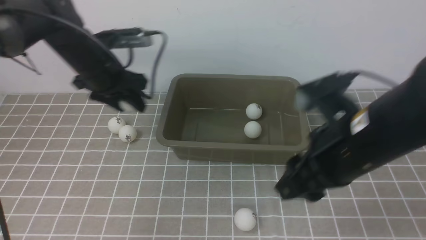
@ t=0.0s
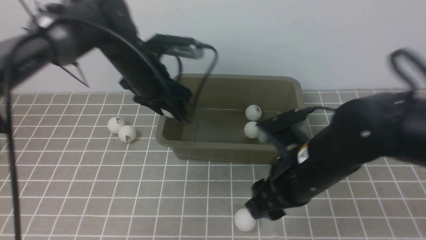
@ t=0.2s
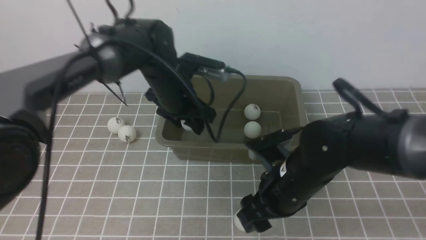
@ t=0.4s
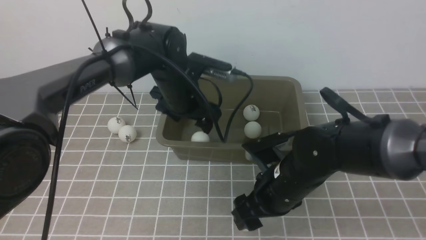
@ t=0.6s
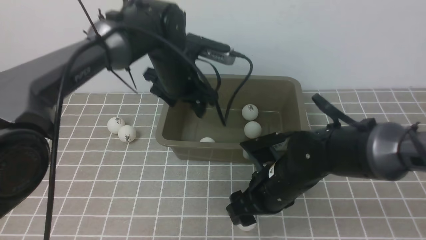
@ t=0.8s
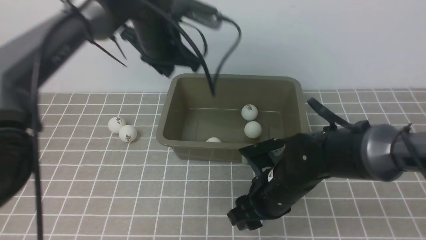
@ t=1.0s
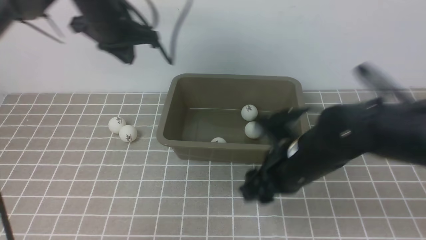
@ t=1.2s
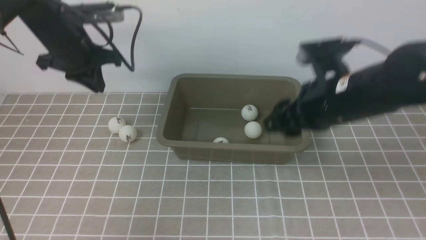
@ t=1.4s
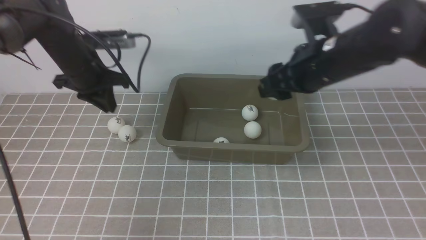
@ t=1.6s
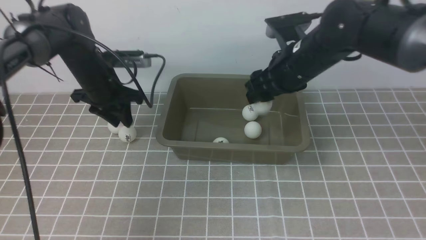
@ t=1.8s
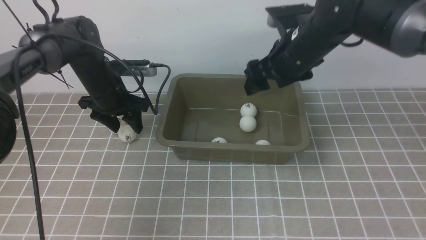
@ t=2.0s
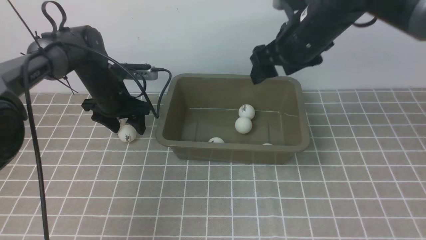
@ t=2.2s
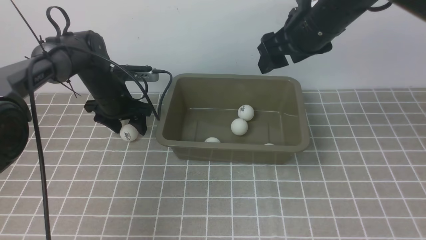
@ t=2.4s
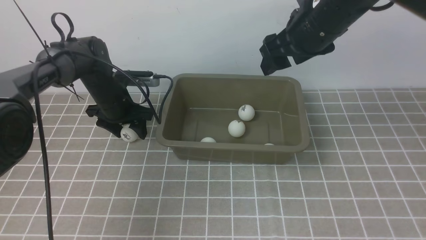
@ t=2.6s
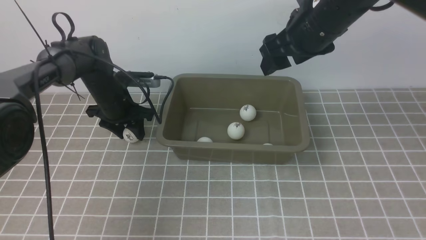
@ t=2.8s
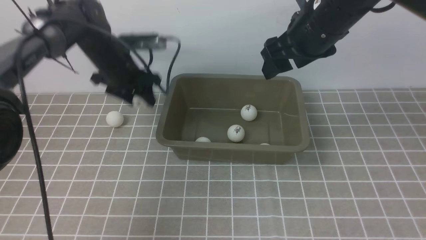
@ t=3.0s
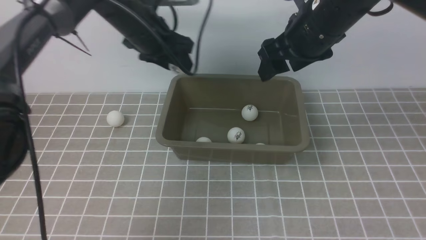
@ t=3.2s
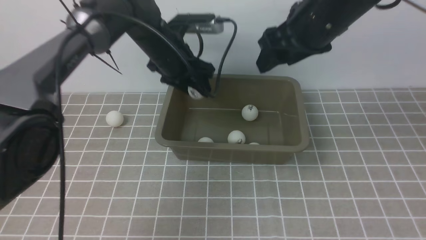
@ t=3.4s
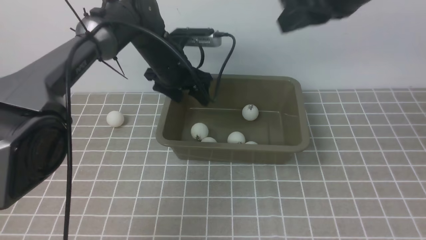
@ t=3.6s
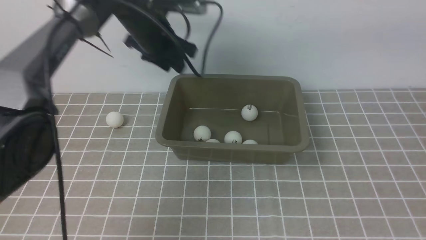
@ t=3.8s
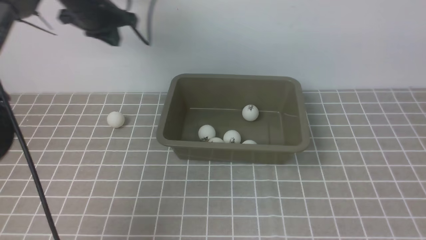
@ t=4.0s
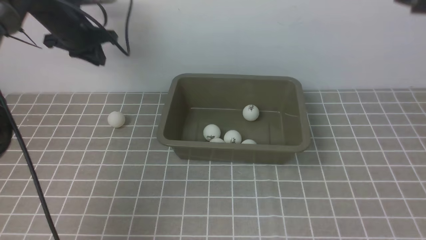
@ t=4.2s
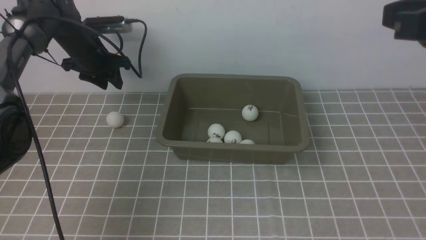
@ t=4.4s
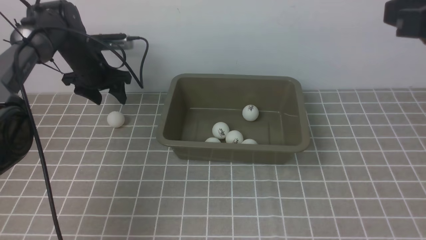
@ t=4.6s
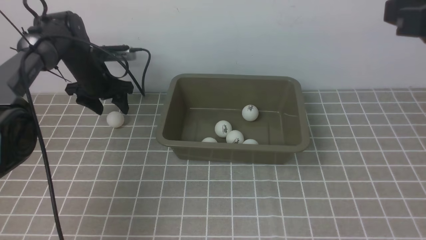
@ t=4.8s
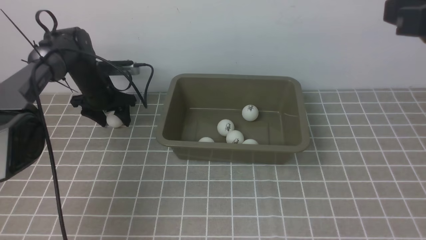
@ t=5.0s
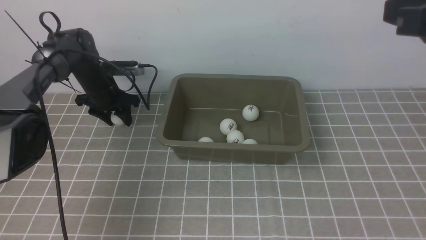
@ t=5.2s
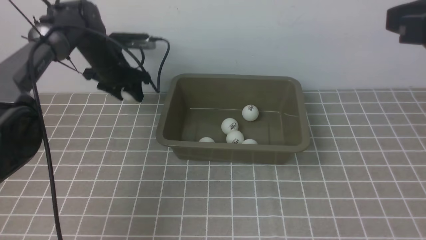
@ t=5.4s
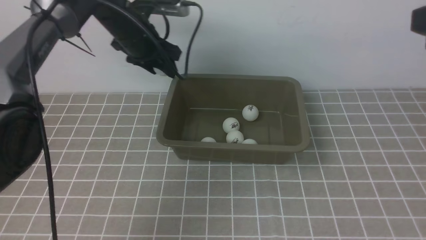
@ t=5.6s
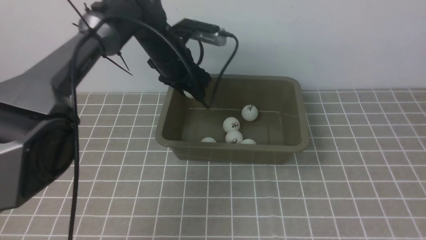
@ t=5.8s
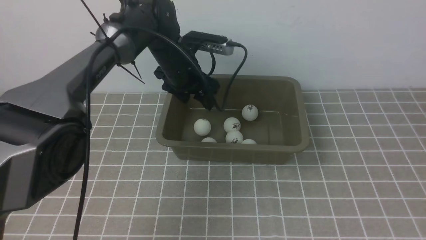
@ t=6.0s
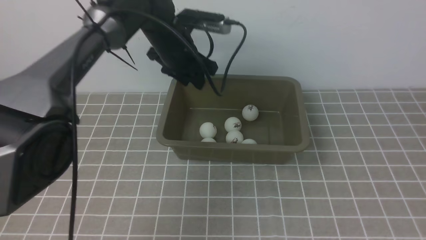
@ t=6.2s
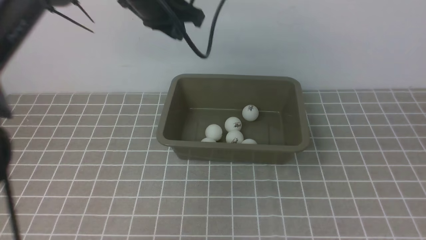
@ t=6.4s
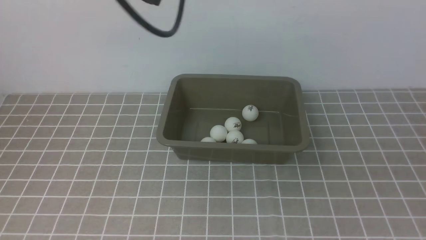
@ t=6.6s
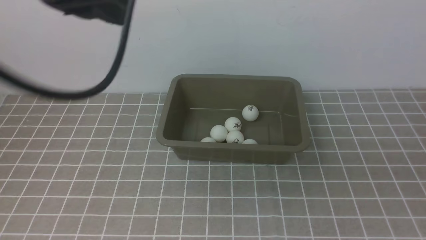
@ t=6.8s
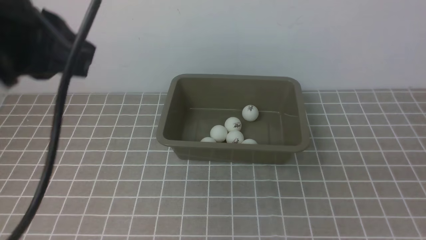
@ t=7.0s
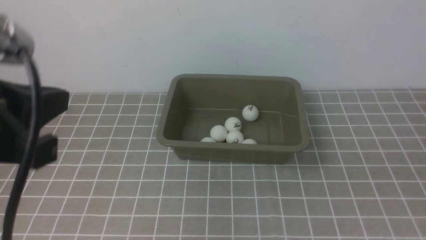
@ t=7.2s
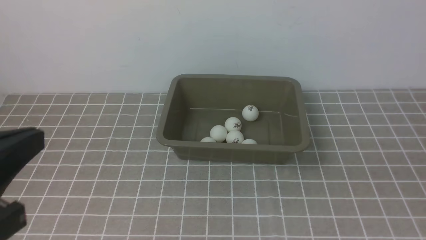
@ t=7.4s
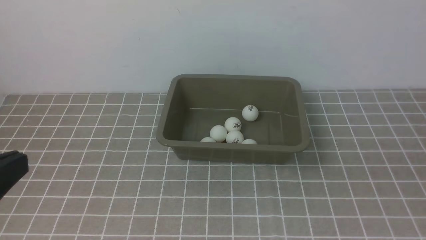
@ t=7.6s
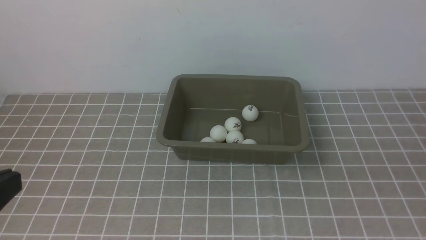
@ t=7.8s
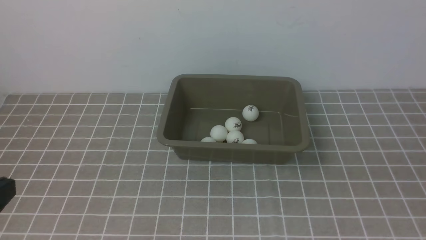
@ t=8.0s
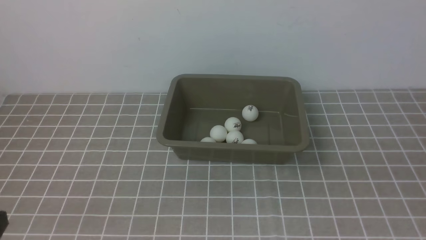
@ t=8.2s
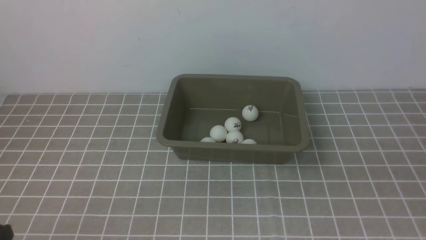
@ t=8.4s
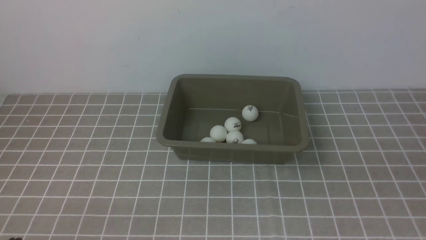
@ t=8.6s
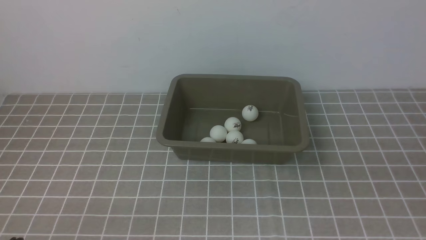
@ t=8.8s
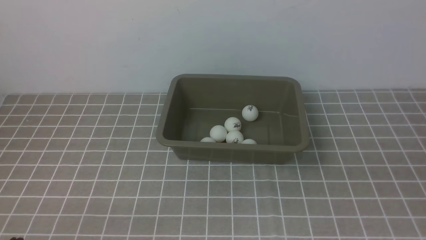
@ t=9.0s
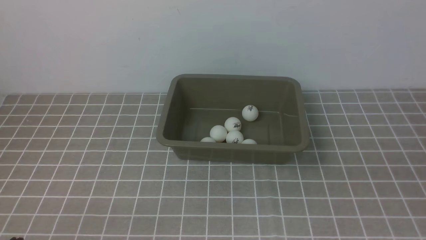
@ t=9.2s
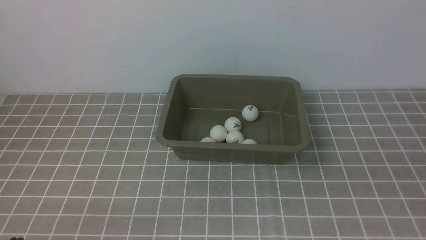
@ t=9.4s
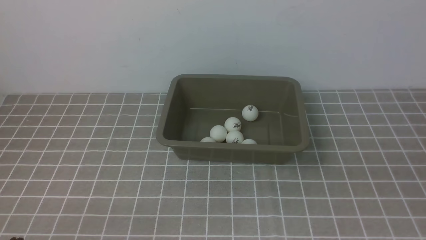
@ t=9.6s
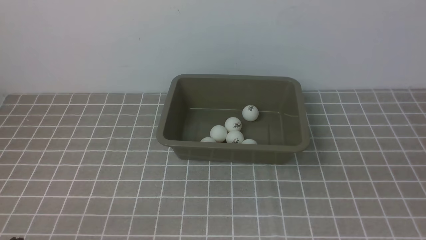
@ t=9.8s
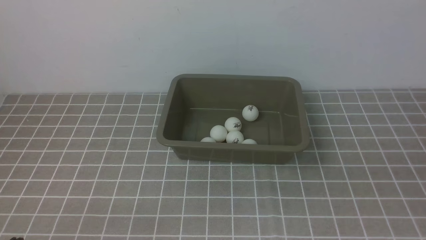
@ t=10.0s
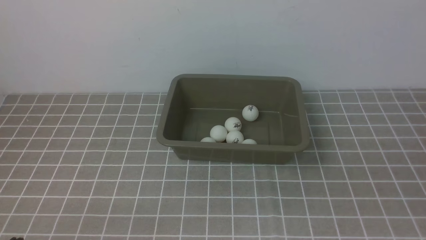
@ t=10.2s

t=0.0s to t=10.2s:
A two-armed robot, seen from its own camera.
Step, t=0.0s to t=0.6s: use the left arm to put the table tennis ball into the box.
Step, t=0.8s to t=1.2s: use the right arm to clamp the table tennis ball closest to it.
Step, t=1.4s to t=1.8s: use the right arm to put the table tennis ball into the box.
Step, t=2.0s to t=2.8s: use the left arm to clamp the table tennis ball closest to it.
Step, t=3.0s to t=3.6s: use the left arm to put the table tennis ball into the box.
Step, t=3.8s to t=5.4s: use the left arm to clamp the table tennis ball closest to it.
Step, t=5.6s to t=6.2s: use the left arm to put the table tennis ball into the box.
t=0.0s to t=1.4s: The left gripper goes to the right and returns, some 10 cm each way, and closes its fingers; the right gripper goes some 5 cm forward, and moves roughly 15 cm downward and comes back.
t=1.4s to t=3.0s: The right gripper heads forward and upward, covering roughly 10 cm, while the left gripper goes roughly 5 cm to the right, and opens.
t=3.0s to t=4.4s: The left gripper goes roughly 10 cm to the left, and closes and opens again; the right gripper shifts about 20 cm backward, upward and to the right, and closes.
t=4.4s to t=5.8s: The left gripper shifts roughly 15 cm to the right. Meanwhile the right gripper is displaced backward by approximately 5 cm.
t=5.8s to t=7.2s: The right gripper goes roughly 20 cm backward, downward and to the right; the left gripper is displaced backward by roughly 35 cm, and closes.
t=7.2s to t=8.8s: The left gripper goes approximately 20 cm downward.

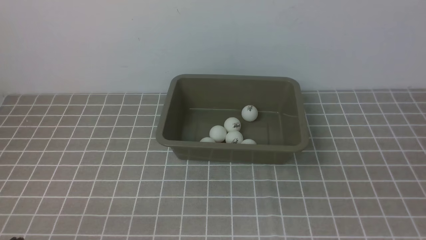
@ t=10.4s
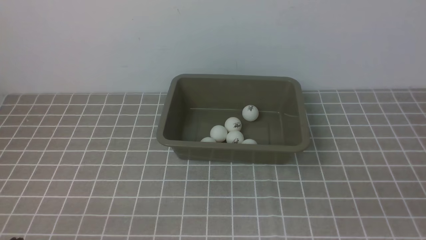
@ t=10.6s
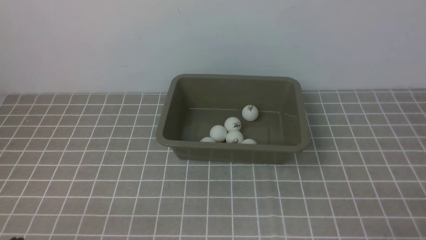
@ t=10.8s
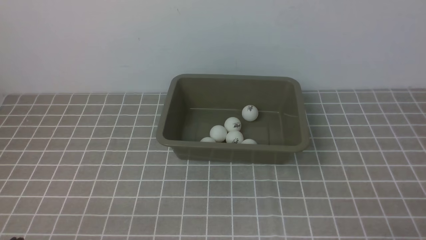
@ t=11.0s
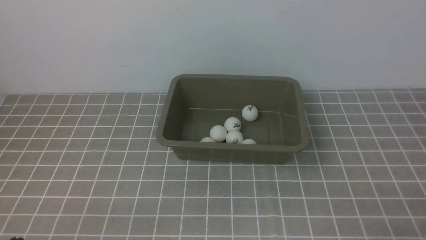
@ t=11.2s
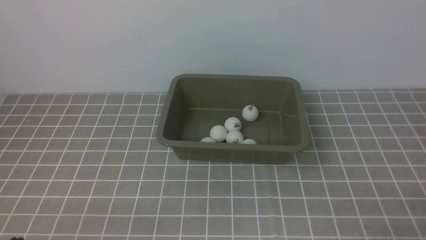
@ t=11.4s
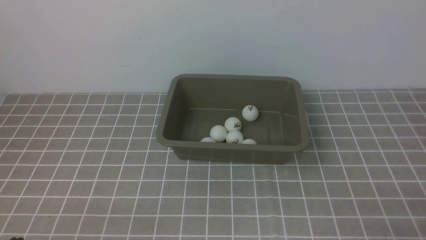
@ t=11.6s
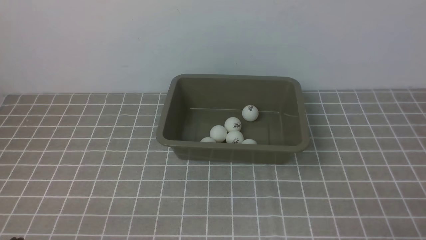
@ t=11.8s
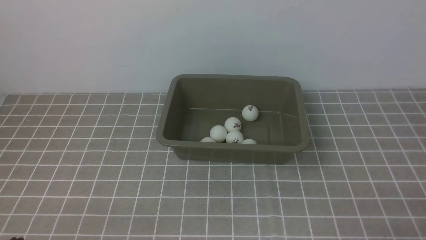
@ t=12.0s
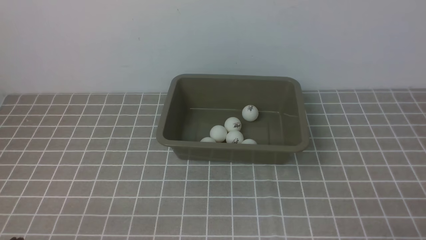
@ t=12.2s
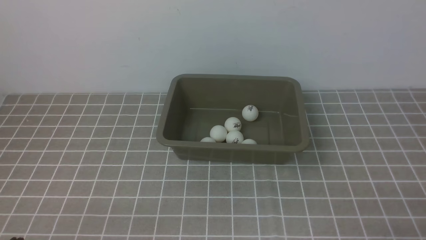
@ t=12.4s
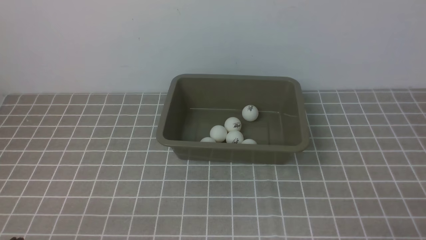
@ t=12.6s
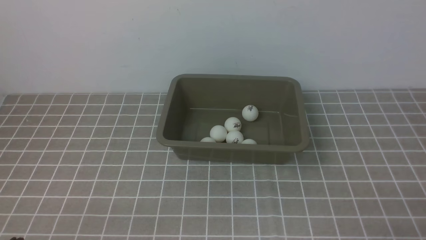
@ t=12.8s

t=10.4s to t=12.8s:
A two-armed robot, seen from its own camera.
t=11.6s to t=12.8s: Both grippers stay put.

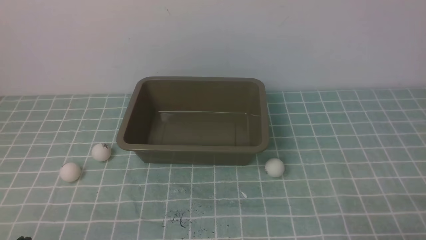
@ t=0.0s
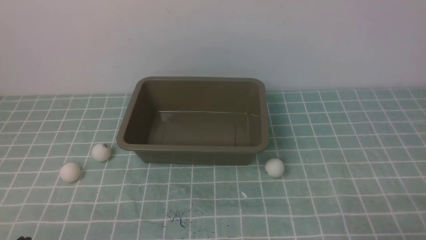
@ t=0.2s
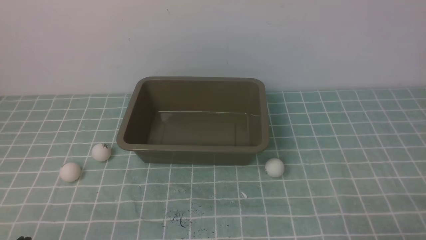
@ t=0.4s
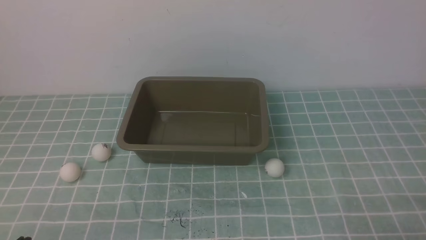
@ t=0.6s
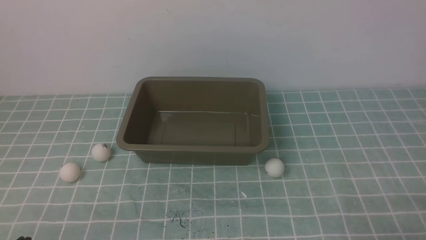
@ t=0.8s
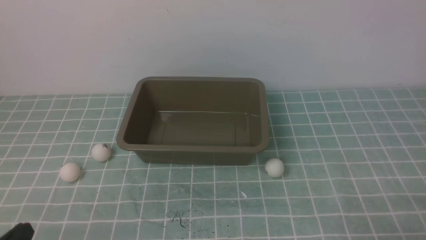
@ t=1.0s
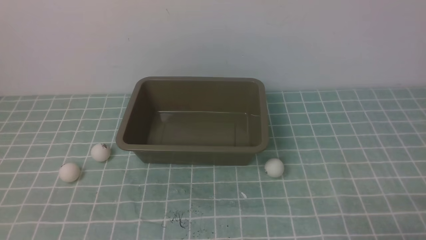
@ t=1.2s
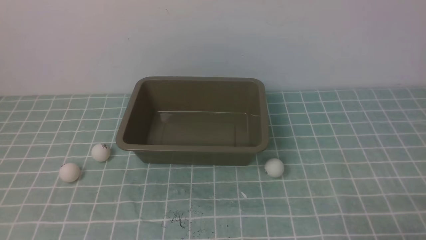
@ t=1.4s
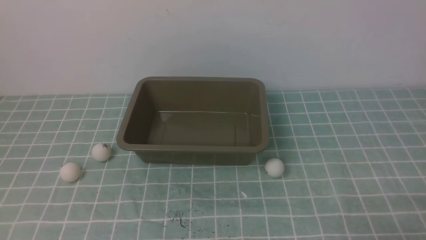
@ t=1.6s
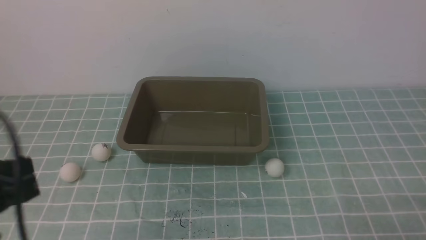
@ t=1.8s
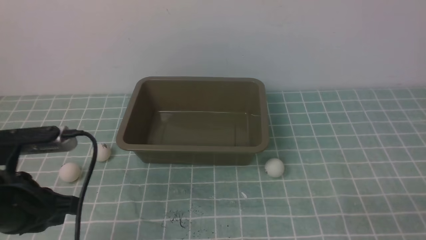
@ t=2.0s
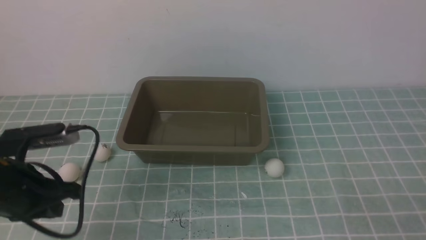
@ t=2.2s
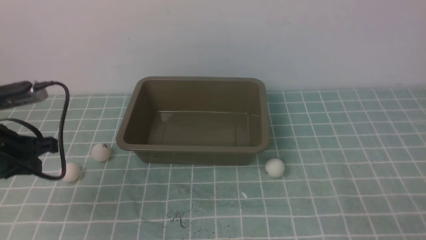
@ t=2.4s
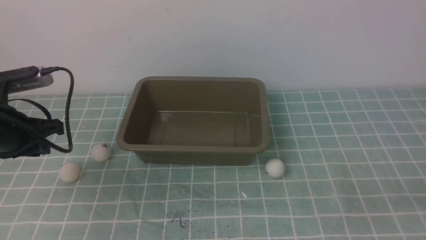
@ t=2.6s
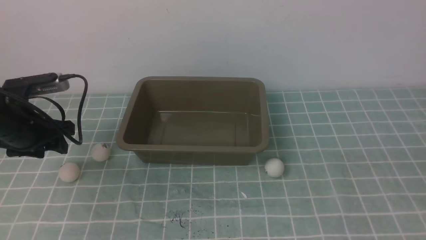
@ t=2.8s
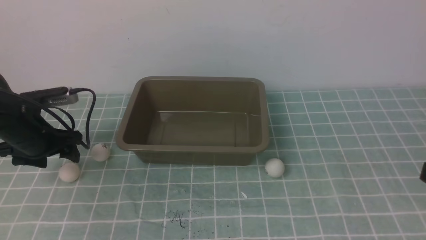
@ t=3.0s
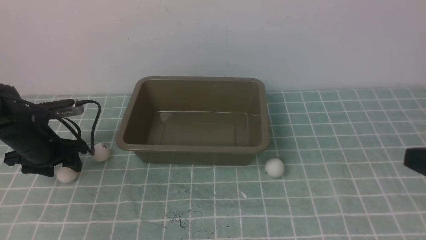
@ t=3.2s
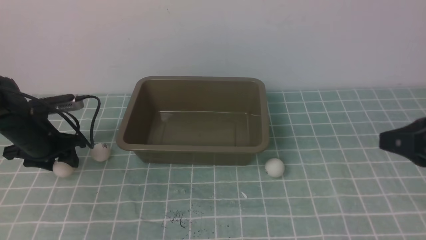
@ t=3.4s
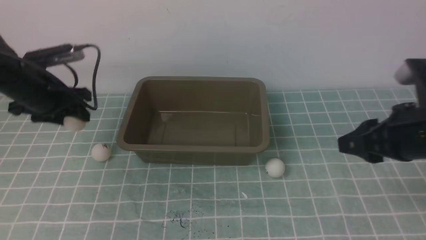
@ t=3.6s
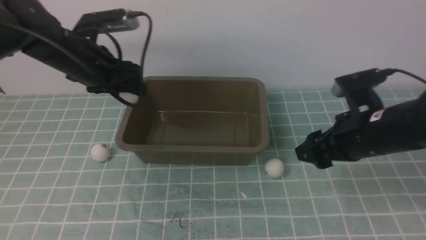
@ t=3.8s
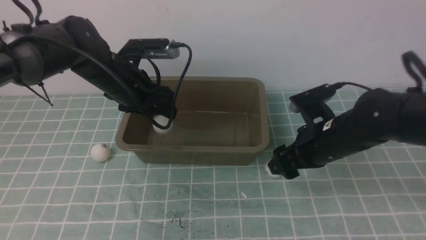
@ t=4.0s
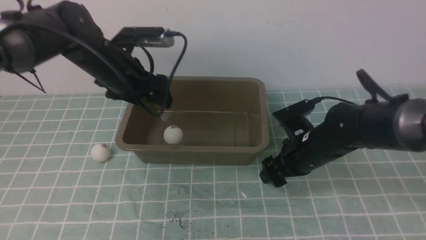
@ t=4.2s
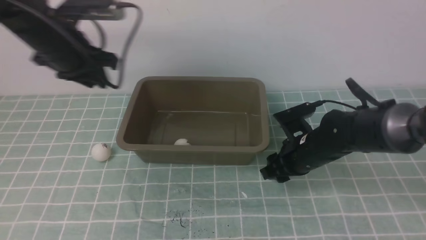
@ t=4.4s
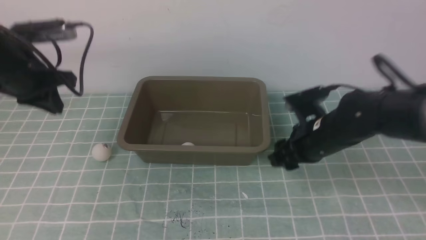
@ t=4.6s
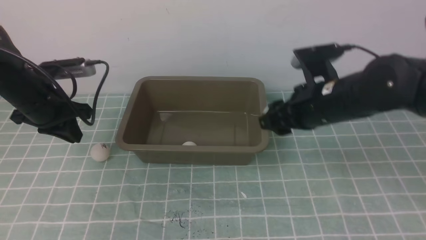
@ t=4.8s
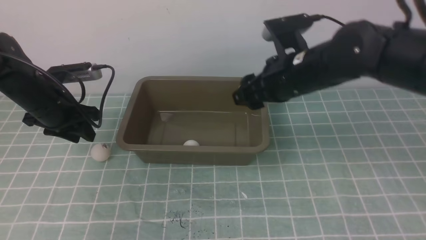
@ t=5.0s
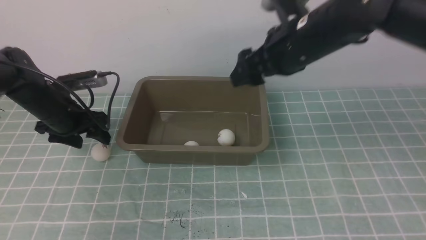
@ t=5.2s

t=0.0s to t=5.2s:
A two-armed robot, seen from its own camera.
Step, t=0.0s to t=3.4s: use the left arm to clamp the table tennis ball closest to it.
Step, t=3.6s to t=3.8s: use the left arm to put the table tennis ball into the box.
Step, t=4.2s to t=4.8s: use the right arm to clamp the table tennis ball closest to it.
t=1.8s to t=3.4s: The left gripper travels forward and downward by roughly 30 cm, and opens; the right gripper moves upward and forward, about 20 cm.
t=3.4s to t=5.2s: The left gripper moves roughly 15 cm to the right and comes back, and closes, then opens again; the right gripper shifts approximately 25 cm forward and to the left, and opens its fingers.